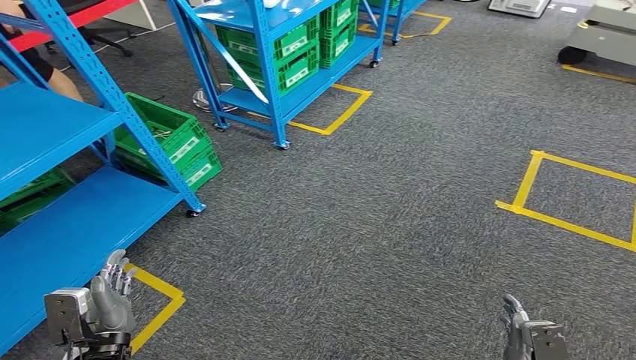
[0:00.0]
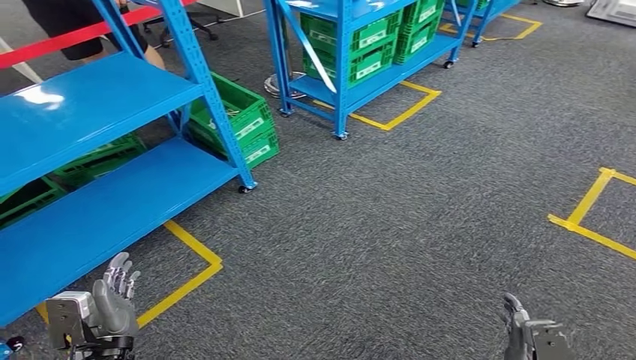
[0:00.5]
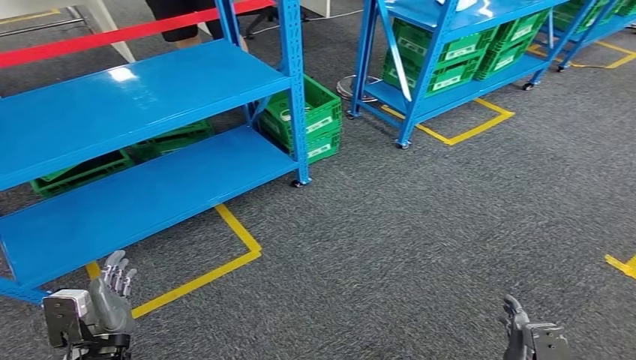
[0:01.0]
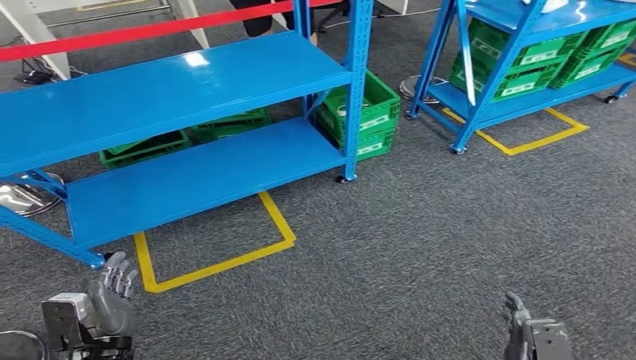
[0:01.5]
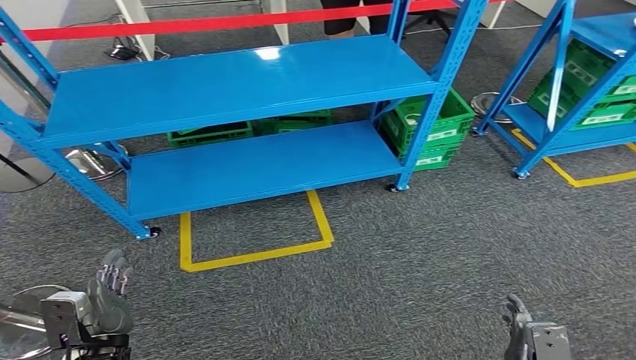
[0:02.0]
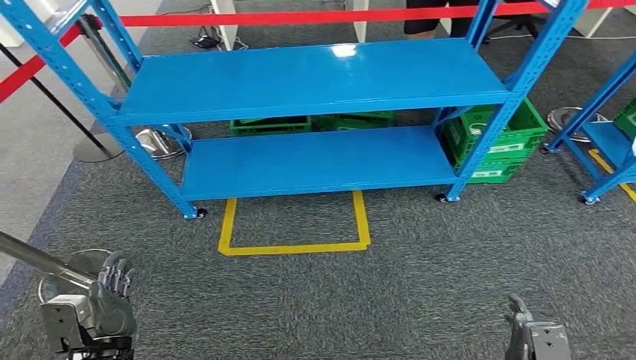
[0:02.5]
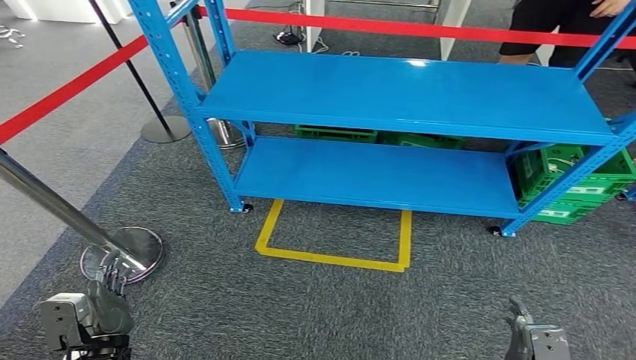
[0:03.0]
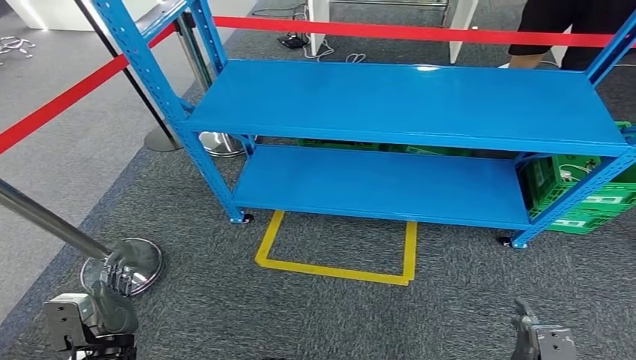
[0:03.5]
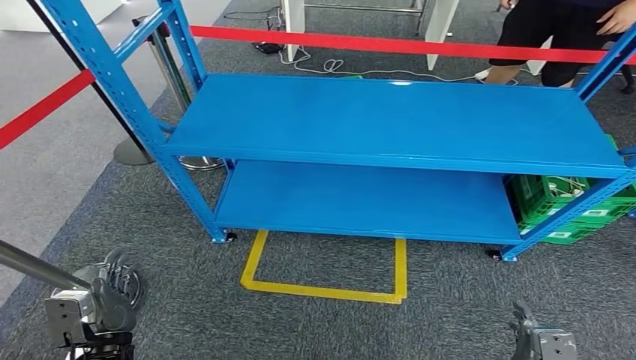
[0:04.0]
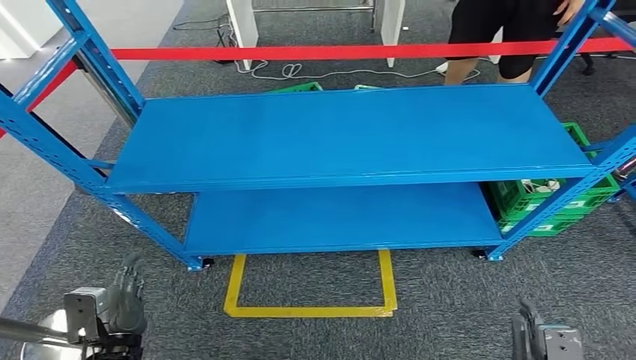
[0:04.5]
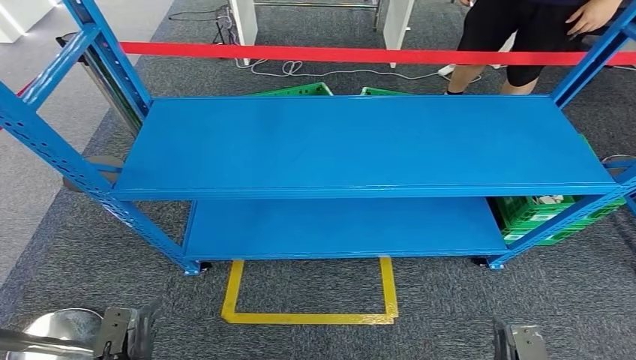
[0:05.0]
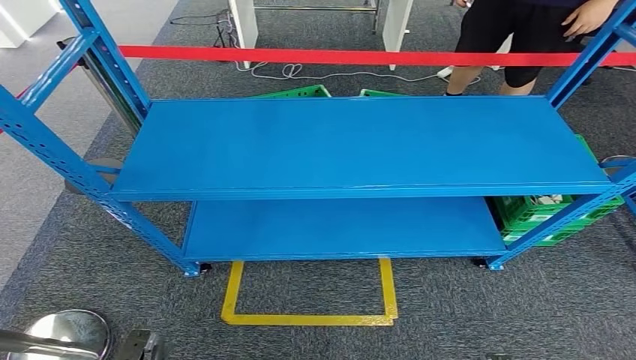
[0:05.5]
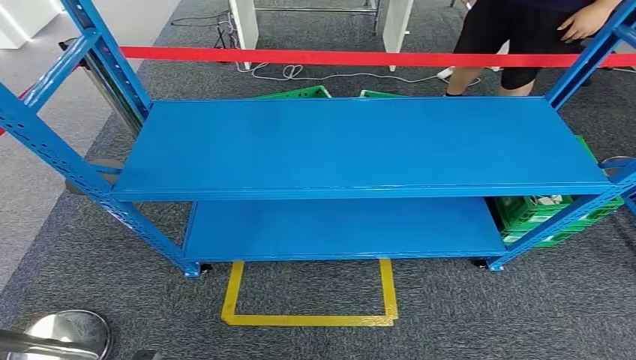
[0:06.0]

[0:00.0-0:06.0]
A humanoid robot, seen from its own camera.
Step, 0:00.0 to 0:05.5: Return to the initial position at the workbench.
